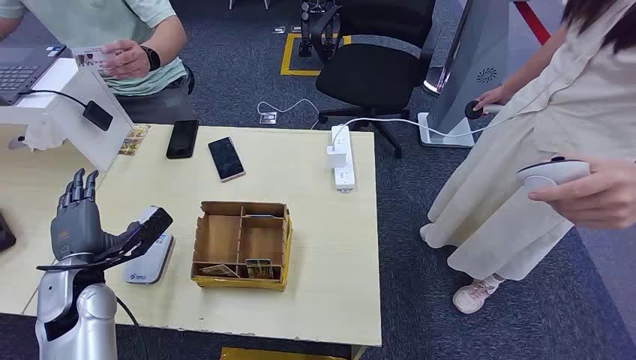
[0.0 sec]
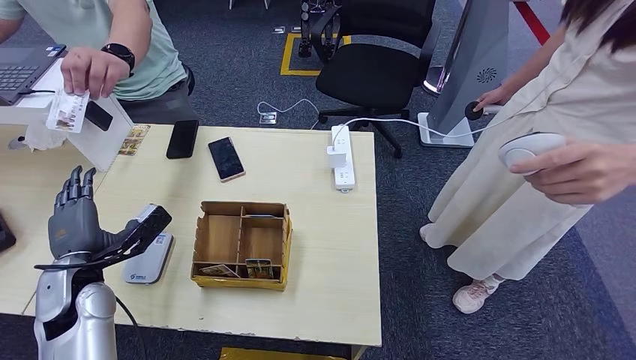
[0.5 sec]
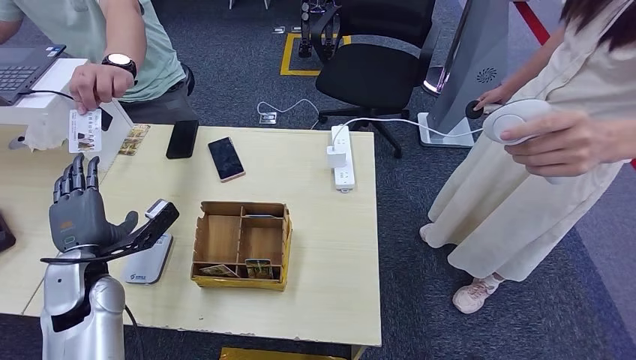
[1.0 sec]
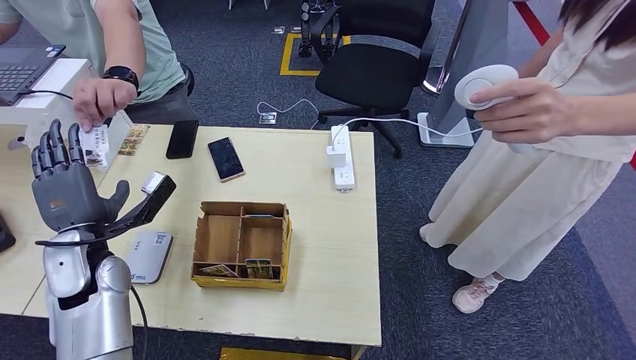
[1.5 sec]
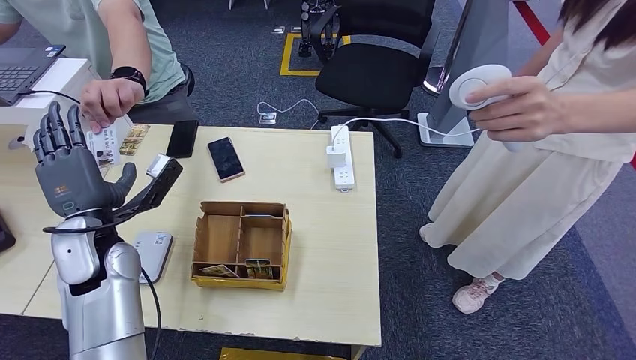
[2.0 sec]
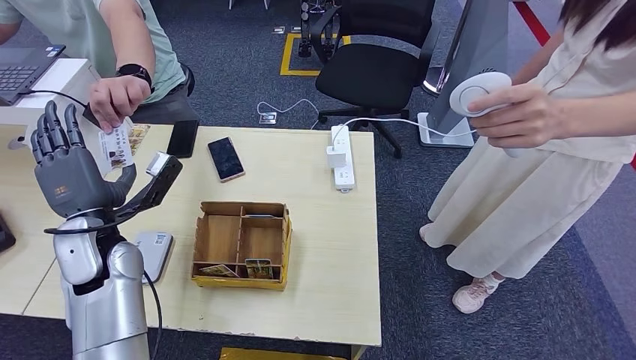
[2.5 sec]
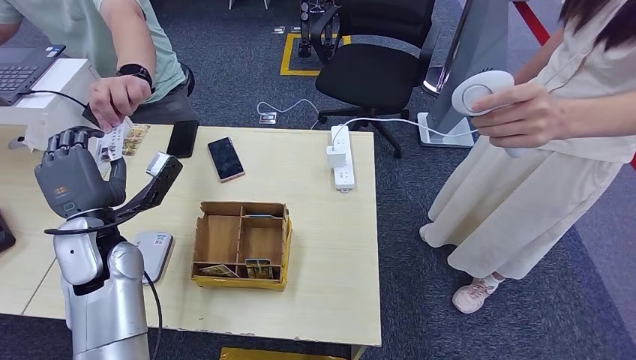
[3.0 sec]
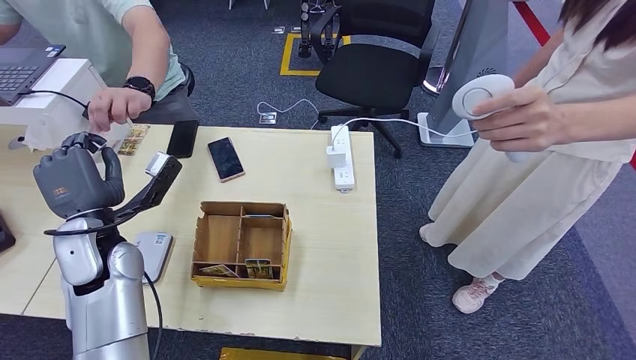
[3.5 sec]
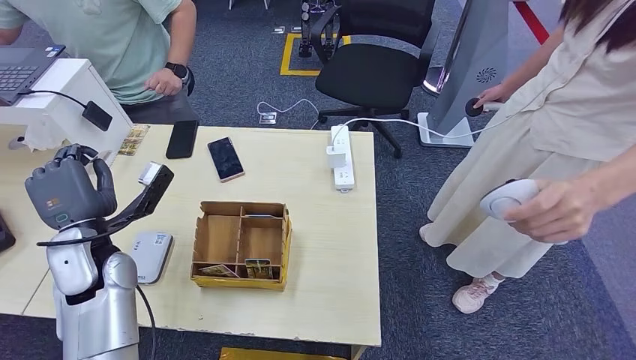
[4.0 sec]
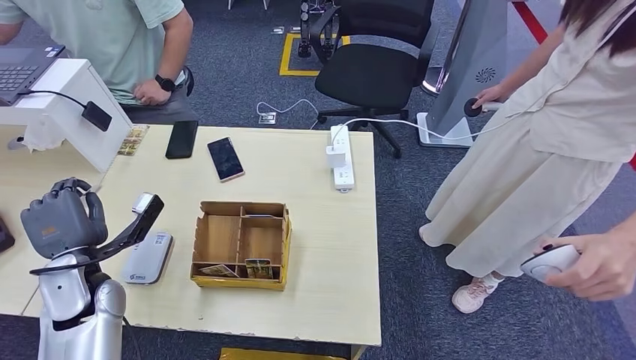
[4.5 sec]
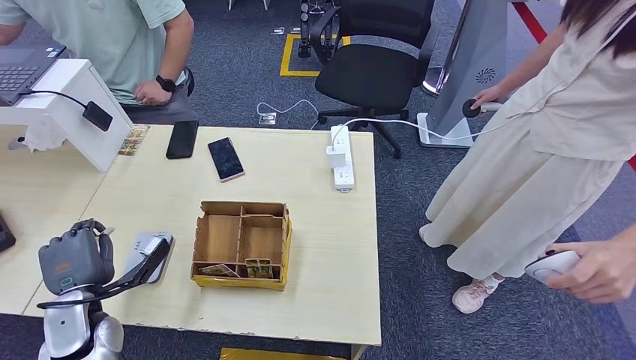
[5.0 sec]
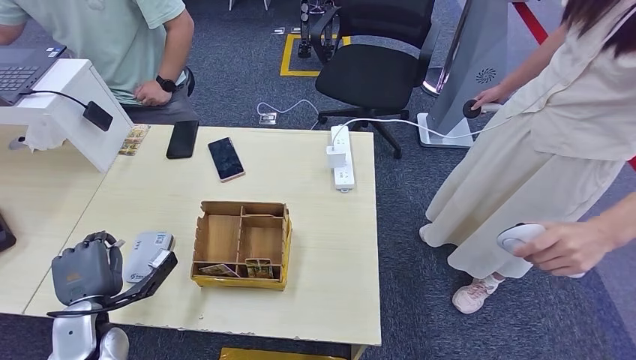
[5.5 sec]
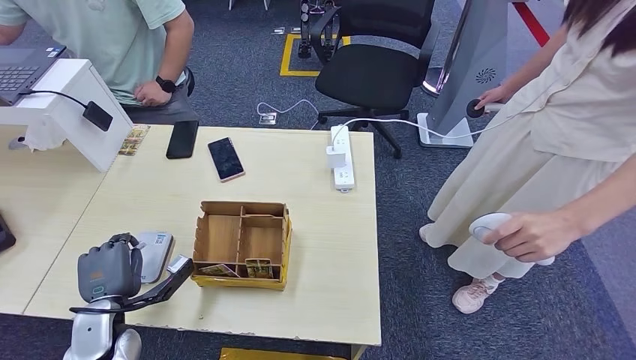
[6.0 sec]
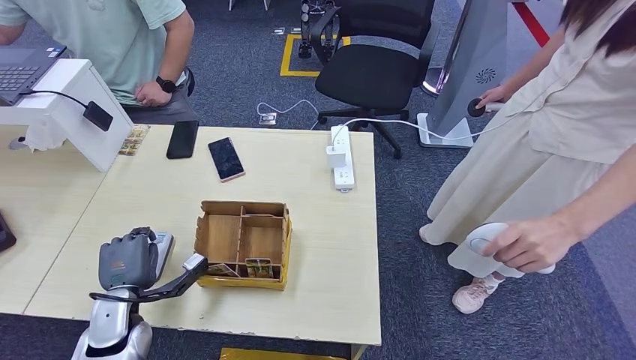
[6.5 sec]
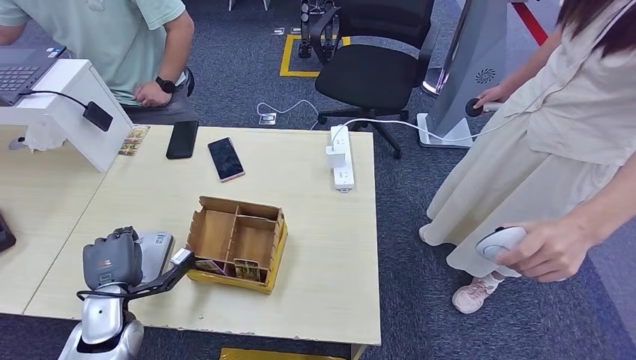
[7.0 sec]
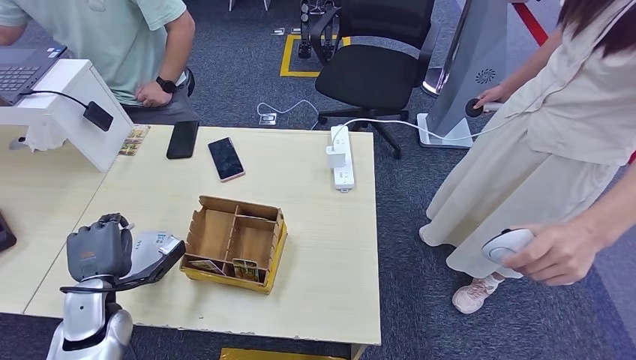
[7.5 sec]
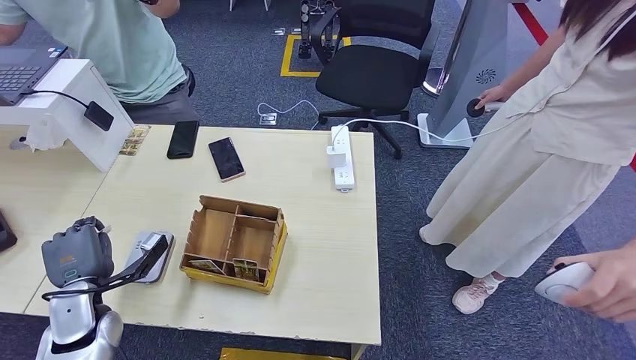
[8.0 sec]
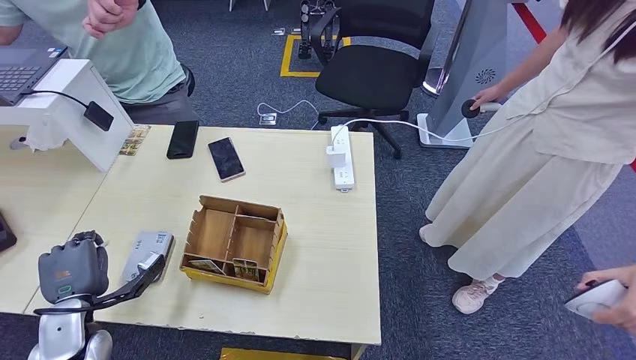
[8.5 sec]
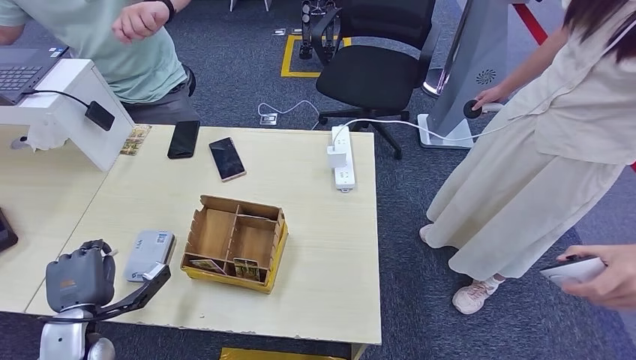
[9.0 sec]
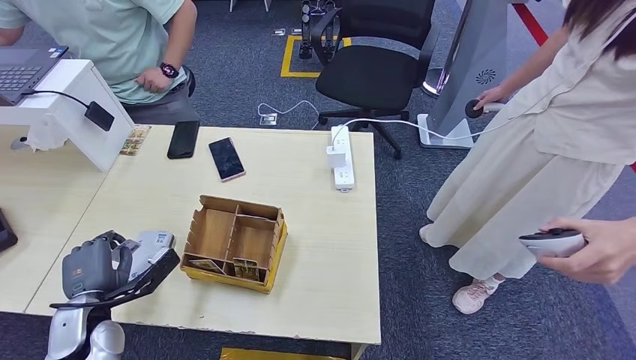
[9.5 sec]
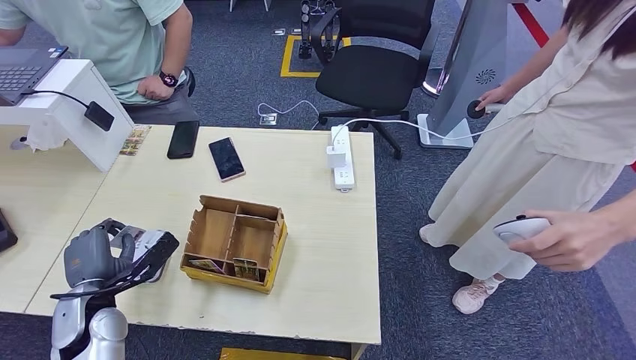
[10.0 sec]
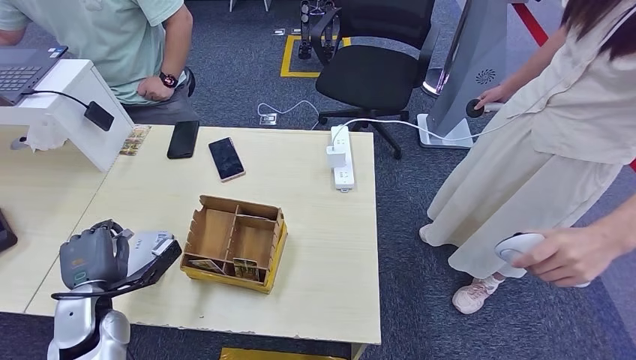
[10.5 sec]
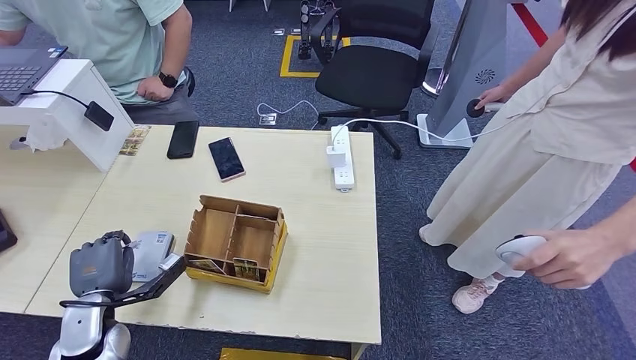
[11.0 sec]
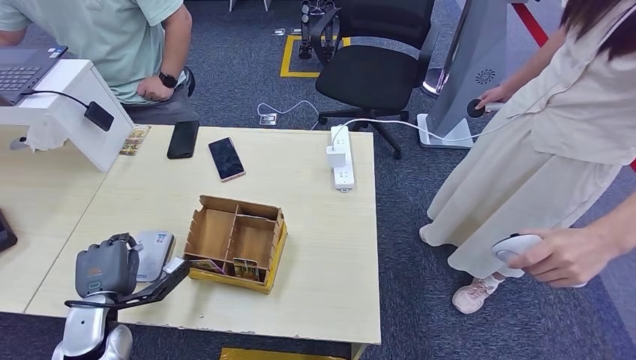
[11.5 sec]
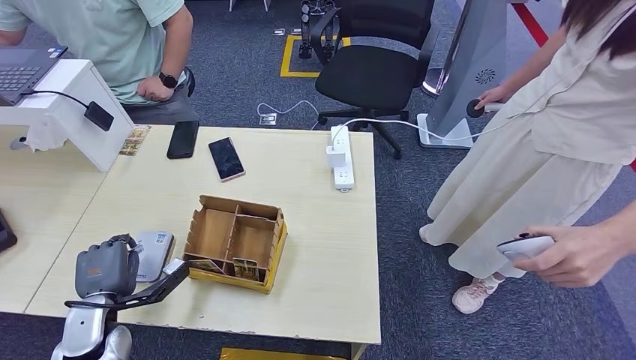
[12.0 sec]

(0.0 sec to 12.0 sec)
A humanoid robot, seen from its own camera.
Step, 0.0 sec - 3.5 sec: Take the ID card from the person's hand.
2.0 sec - 4.0 sec: Both hands stay about where they are.
4.0 sec - 6.0 sec: The left hand moves downward and backward, about 15 cm.
6.0 sec - 8.0 sec: There are only small adjustments of the hands.

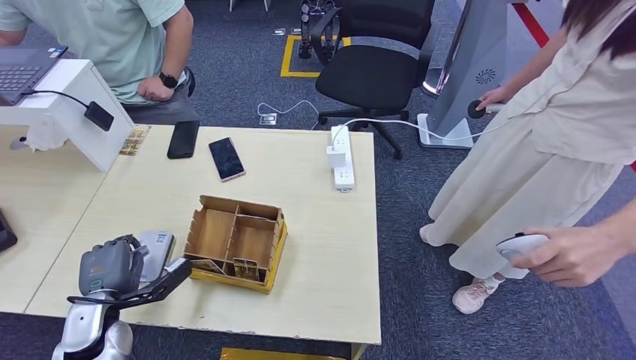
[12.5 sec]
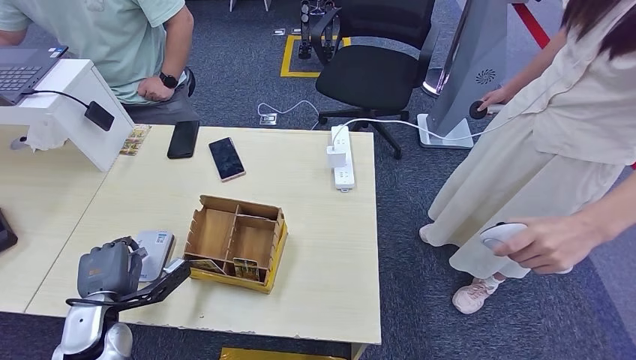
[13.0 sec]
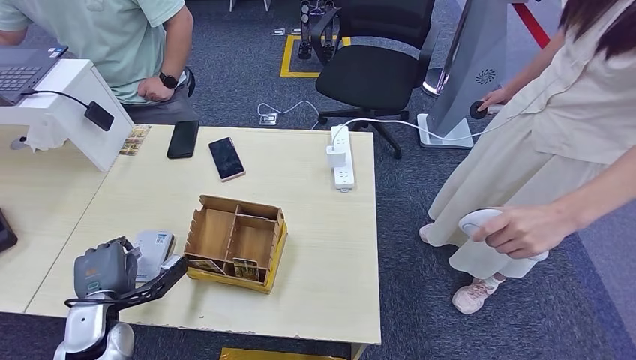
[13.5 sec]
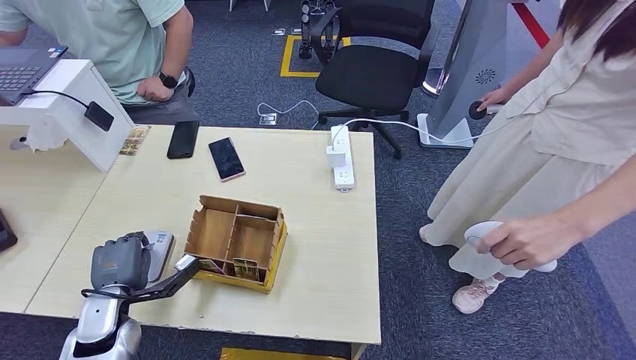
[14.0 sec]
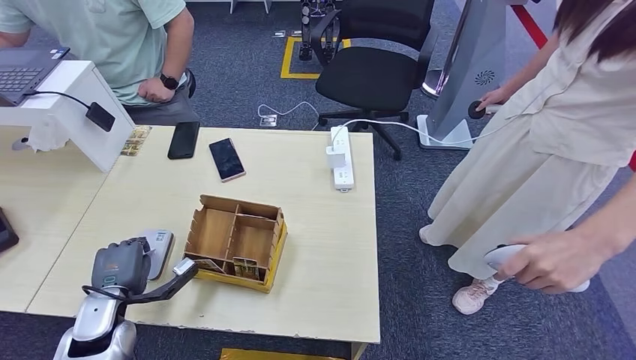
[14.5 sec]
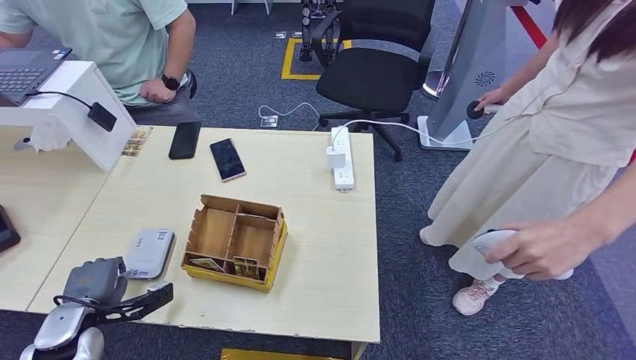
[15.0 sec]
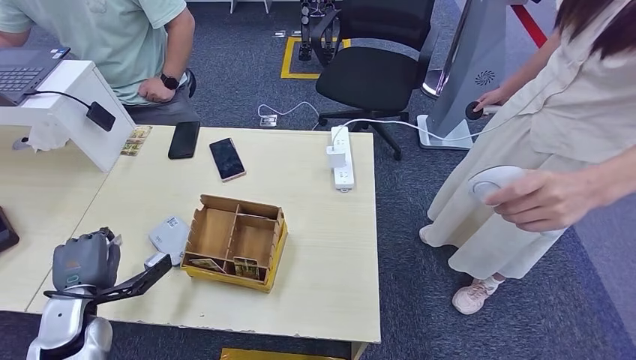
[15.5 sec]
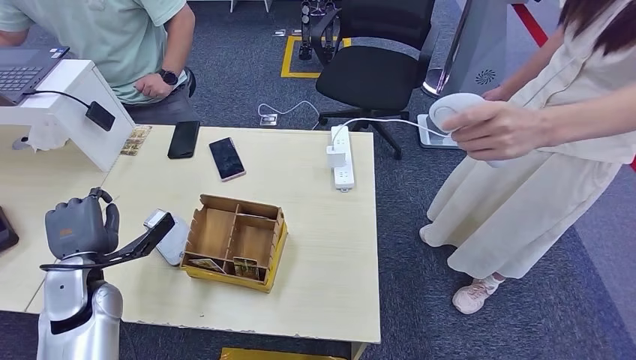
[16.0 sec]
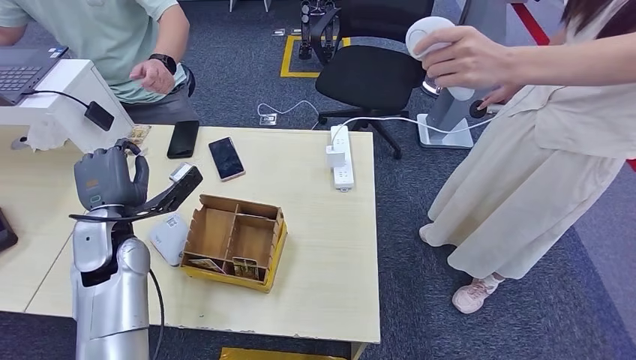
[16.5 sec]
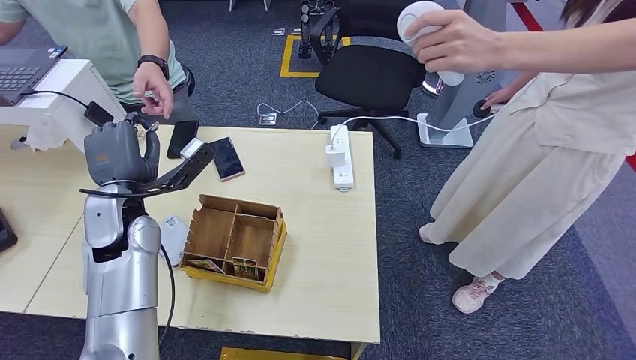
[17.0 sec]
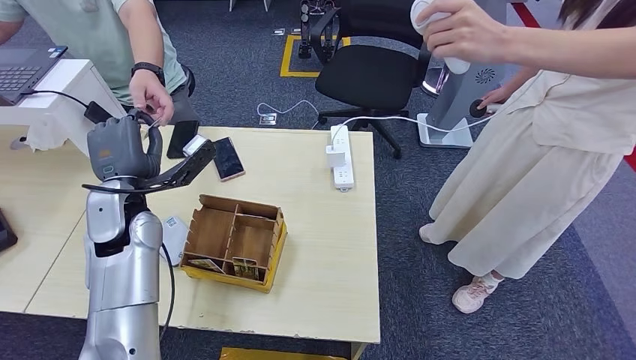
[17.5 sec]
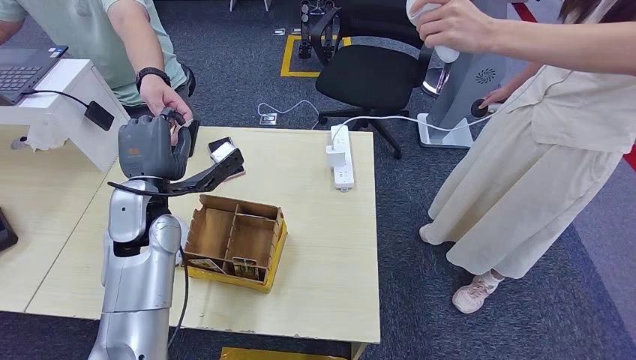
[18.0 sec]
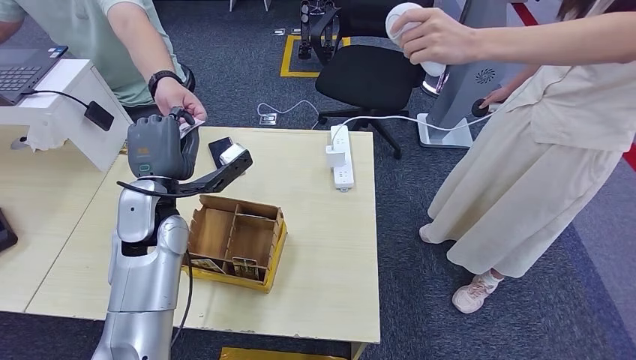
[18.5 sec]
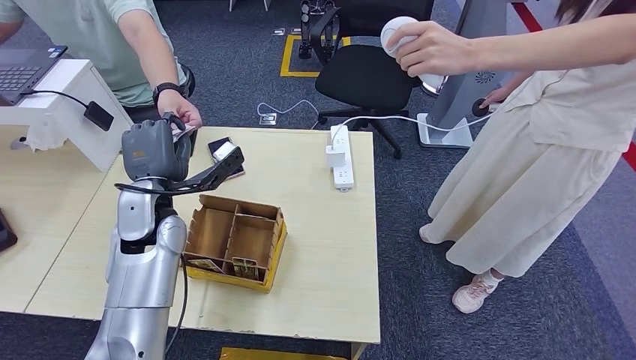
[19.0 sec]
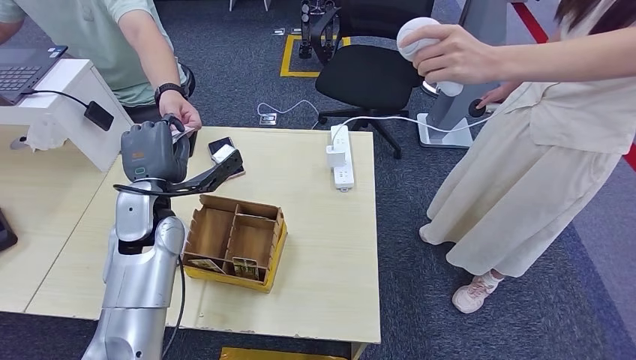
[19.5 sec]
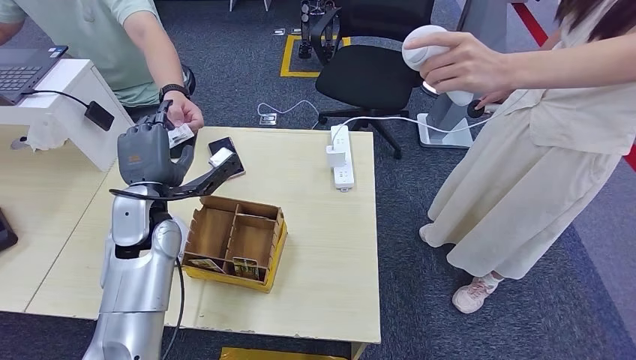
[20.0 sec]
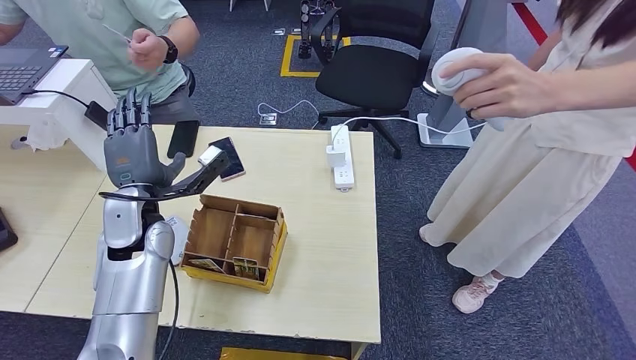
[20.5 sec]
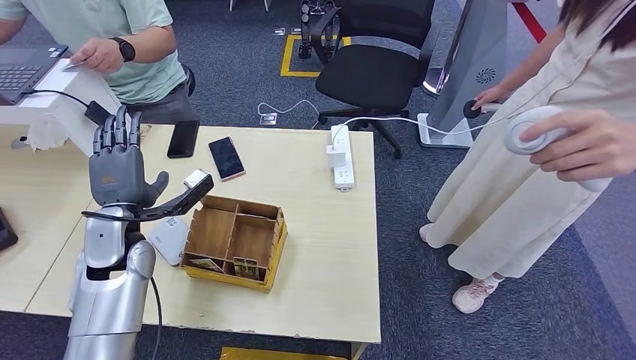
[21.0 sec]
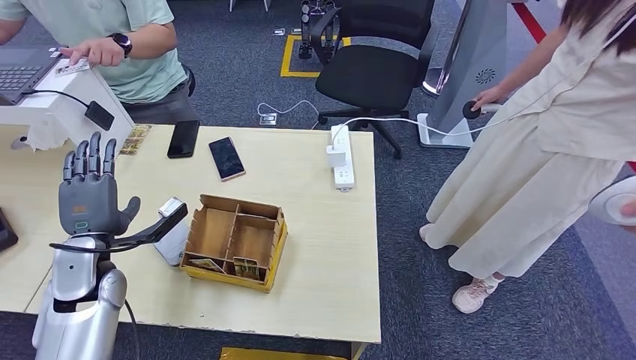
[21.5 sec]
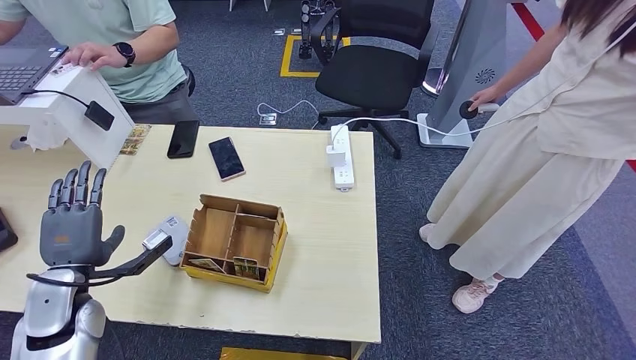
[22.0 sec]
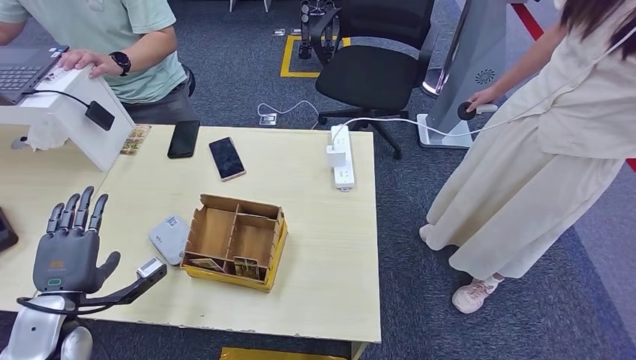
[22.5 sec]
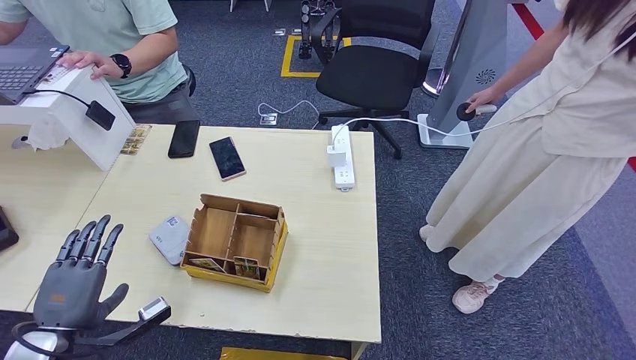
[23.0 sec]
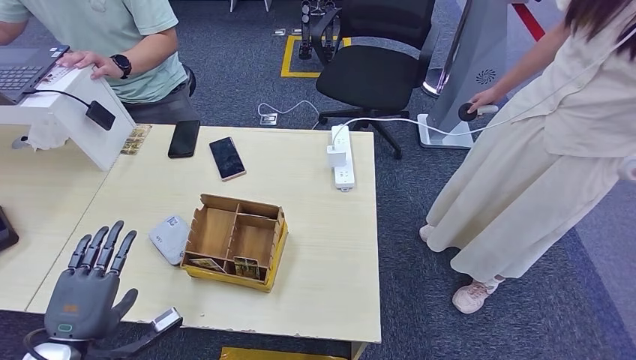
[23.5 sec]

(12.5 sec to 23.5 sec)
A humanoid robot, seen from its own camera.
Step, 12.5 sec - 14.5 sec: Place the ID card on the card reader.
Step, 15.0 sec - 18.0 sec: Hand the ID card to the person.
12.5 sec - 14.5 sec: The hands move only a little.
14.5 sec - 16.0 sec: The left hand moves upward, roughly 10 cm.
18.0 sec - 20.0 sec: The hands move only a little.
21.5 sec - 23.5 sec: The left hand heads backward, covering roughly 15 cm.
